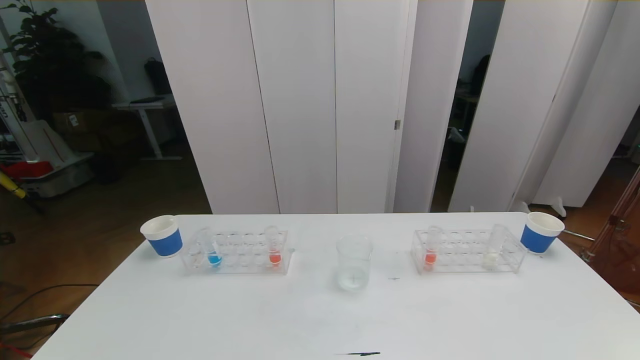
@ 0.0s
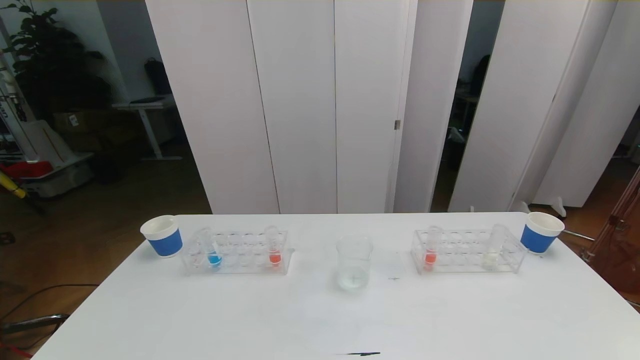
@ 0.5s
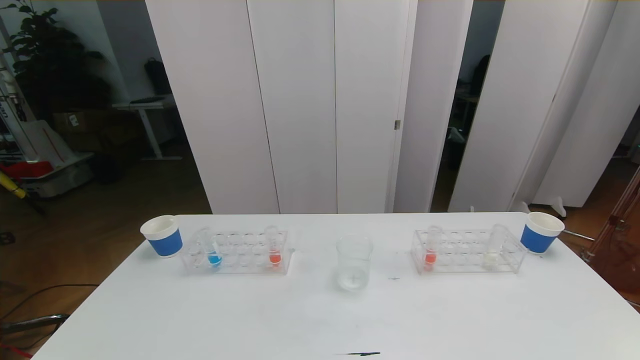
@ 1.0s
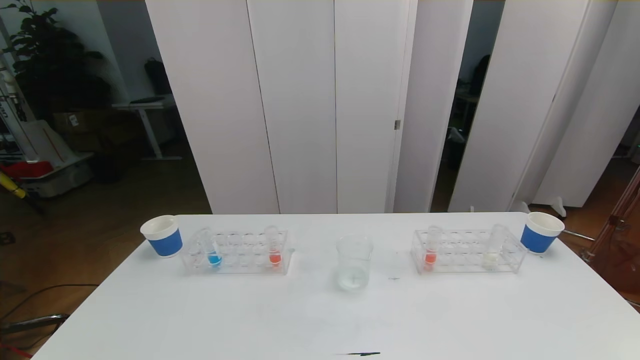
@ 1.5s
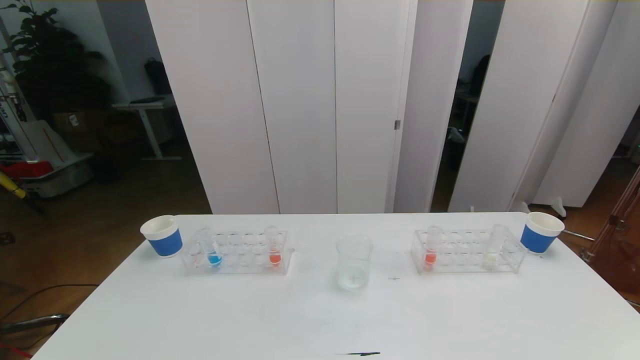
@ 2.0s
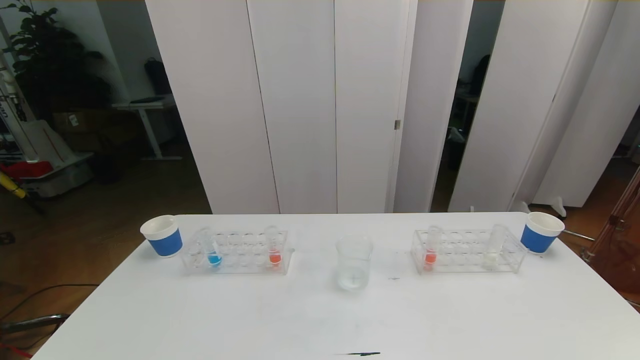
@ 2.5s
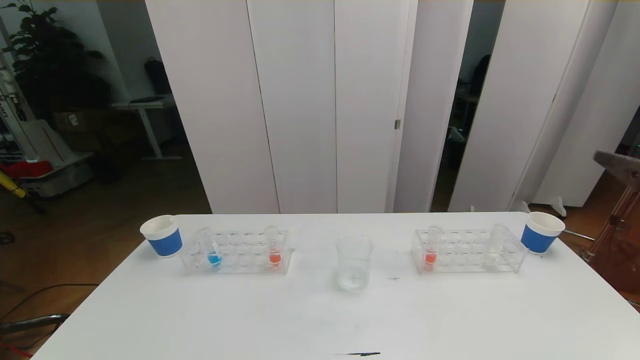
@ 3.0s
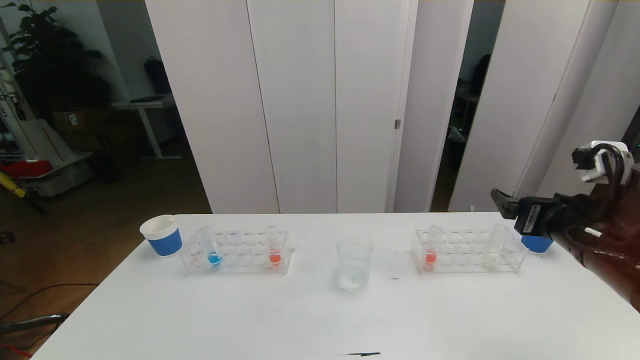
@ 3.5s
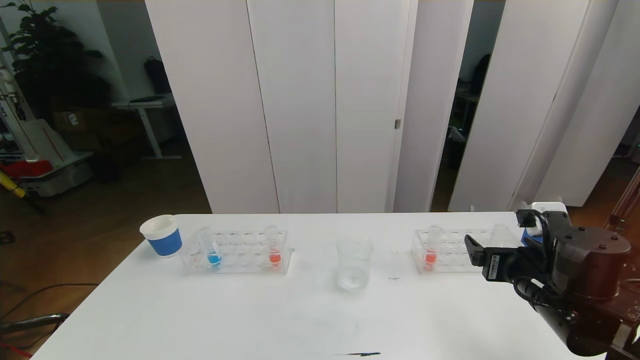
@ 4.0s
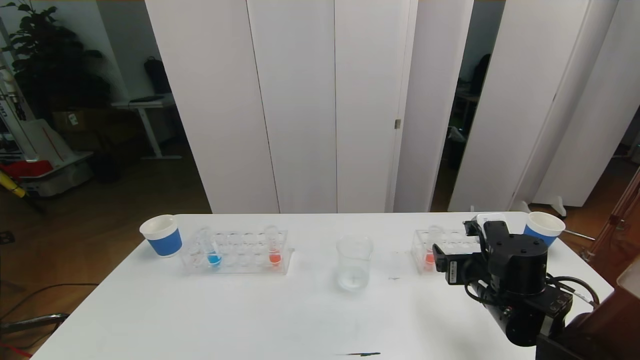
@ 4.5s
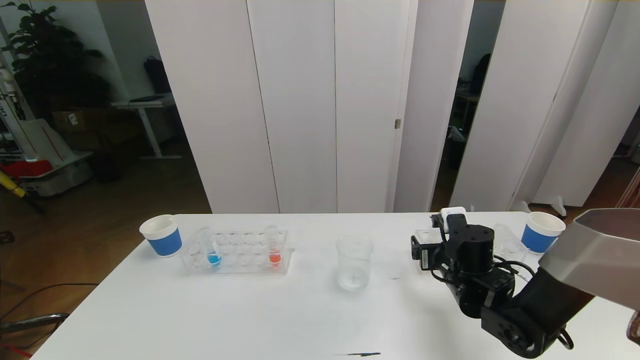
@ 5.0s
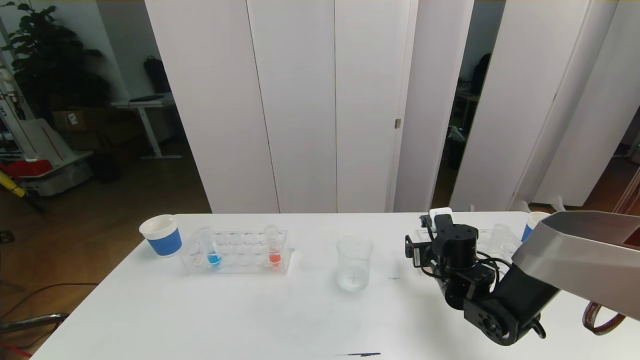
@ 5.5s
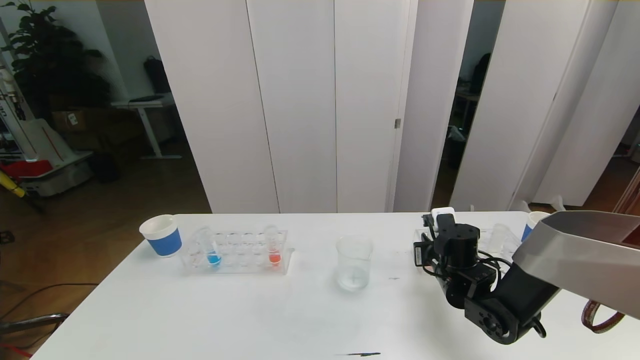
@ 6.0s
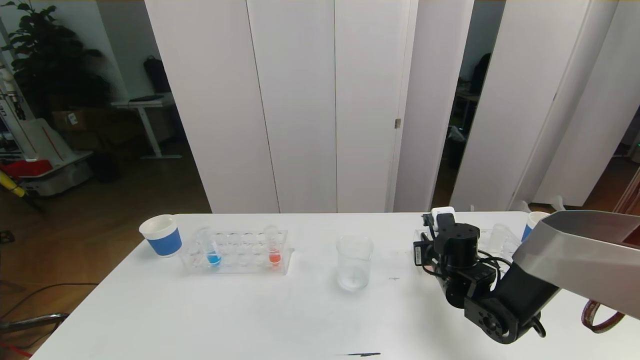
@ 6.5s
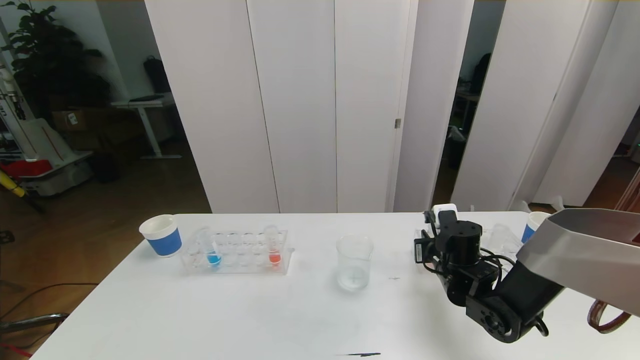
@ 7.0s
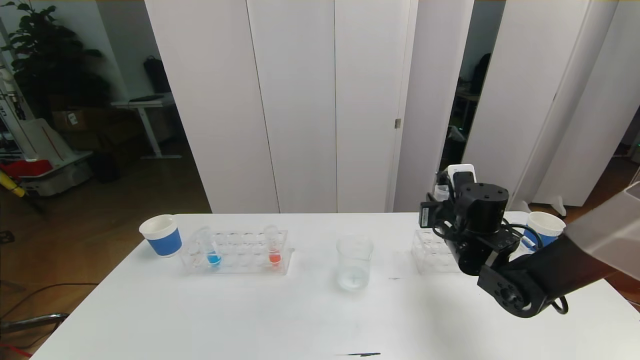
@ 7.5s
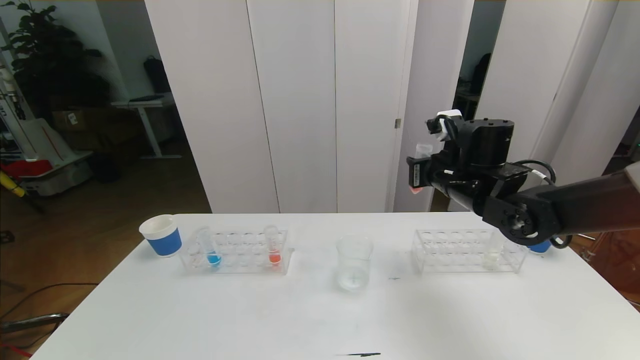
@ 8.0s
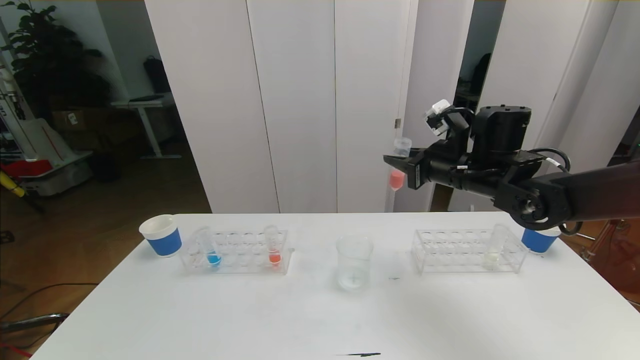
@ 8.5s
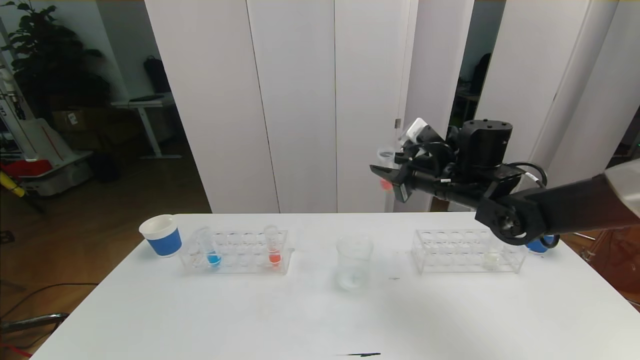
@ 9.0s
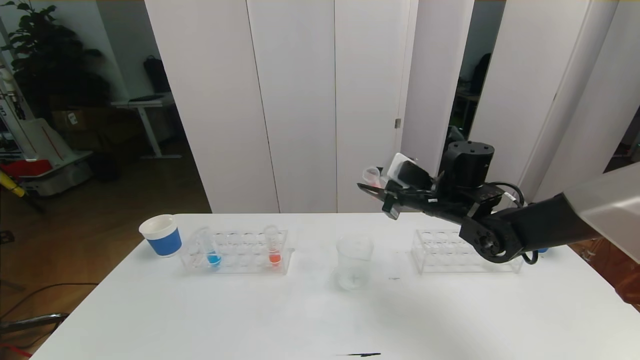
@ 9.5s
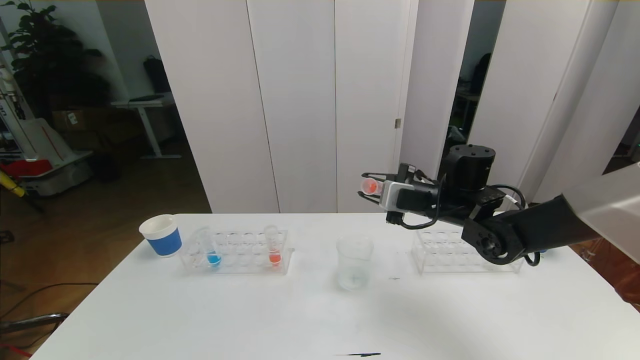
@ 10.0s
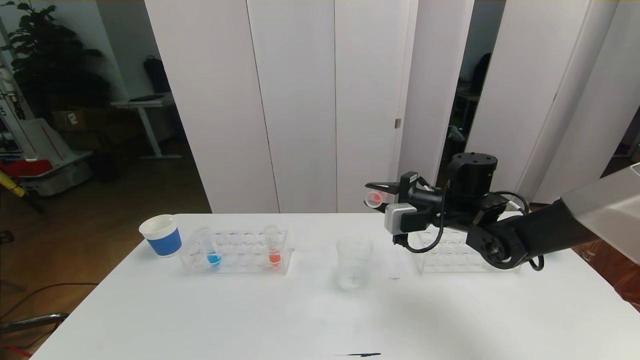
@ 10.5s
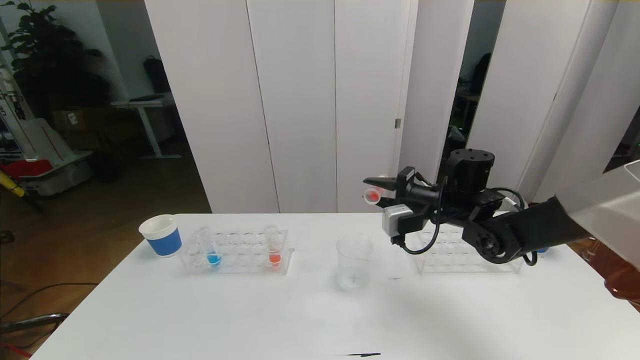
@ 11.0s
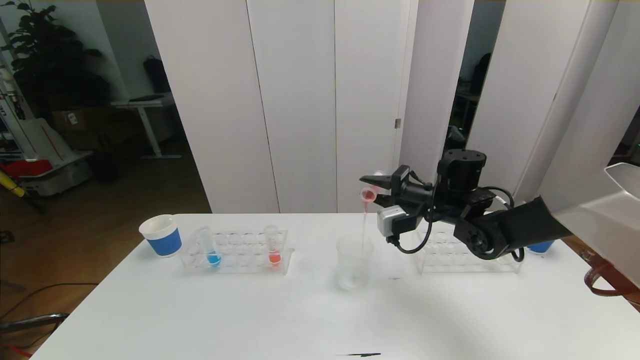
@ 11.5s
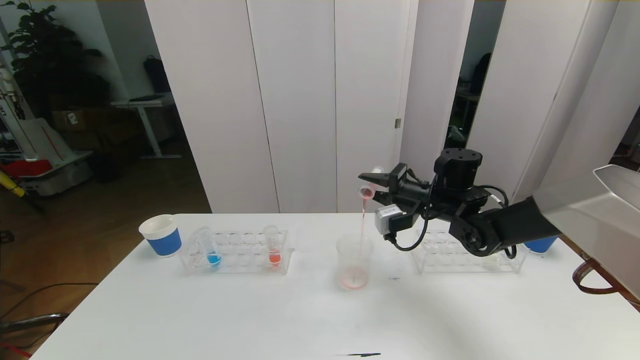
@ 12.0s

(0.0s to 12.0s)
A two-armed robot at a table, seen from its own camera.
Task of the whole recording: pick up the test tube with red pigment the test tube with blue pigment and the test tube with white pigment by grippers and pour them into the beaker.
2.0s - 4.0s: The right gripper moves forward, about 25 cm.
4.0s - 6.0s: The right gripper travels forward, downward and to the left by about 15 cm, and closes.
6.0s - 8.0s: The right gripper goes about 15 cm upward.
8.0s - 10.0s: The right gripper changes place by some 5 cm.

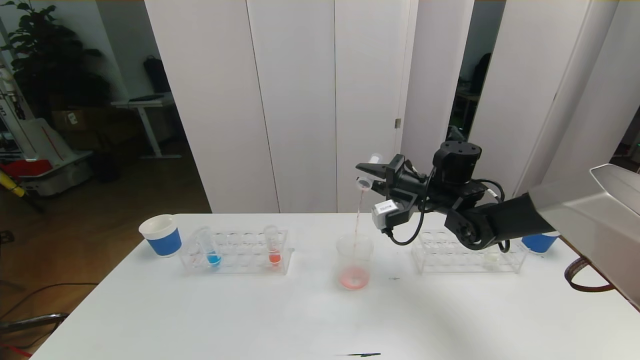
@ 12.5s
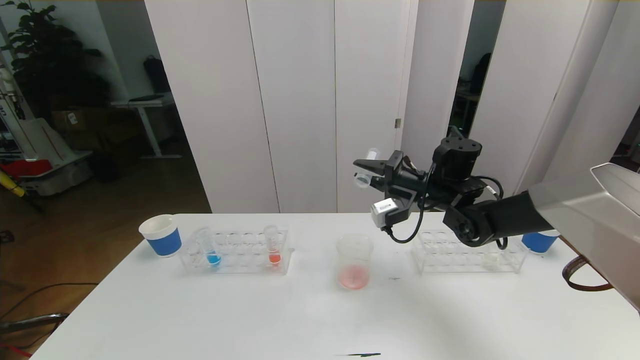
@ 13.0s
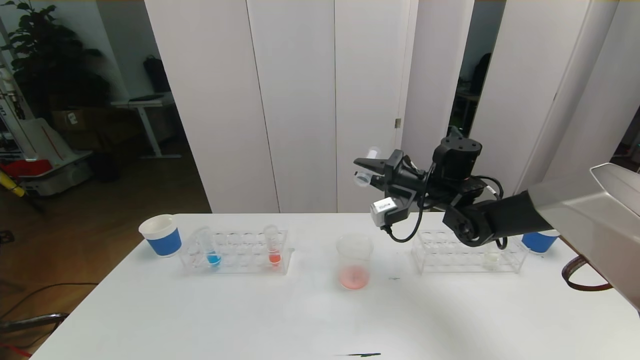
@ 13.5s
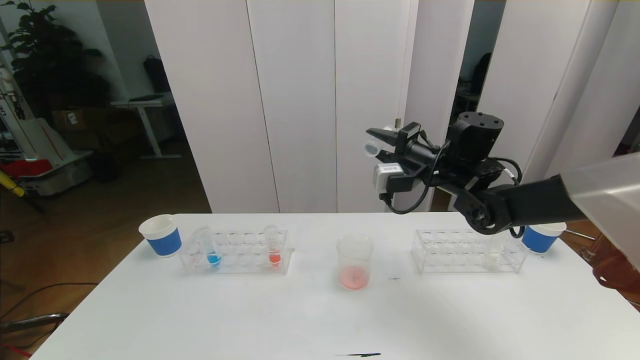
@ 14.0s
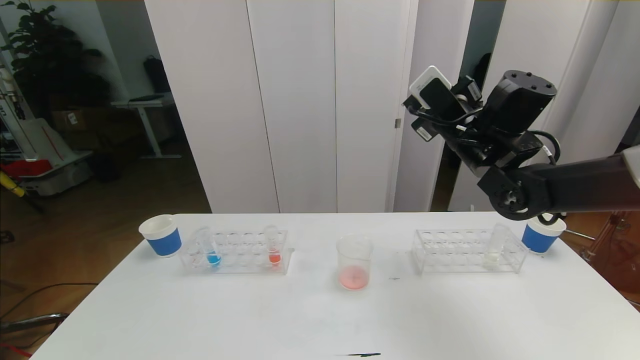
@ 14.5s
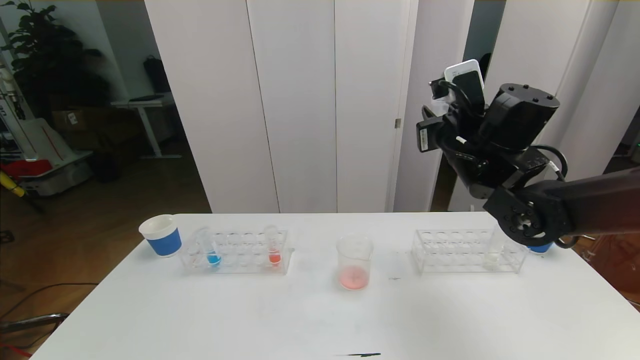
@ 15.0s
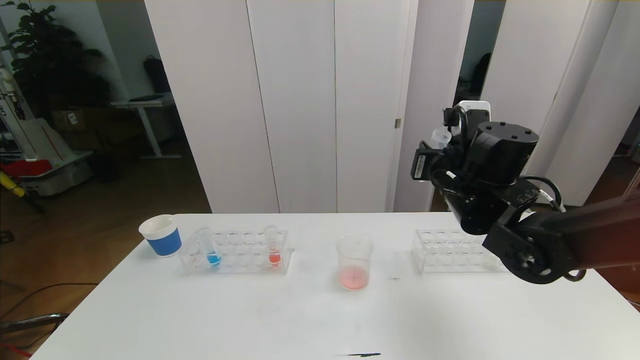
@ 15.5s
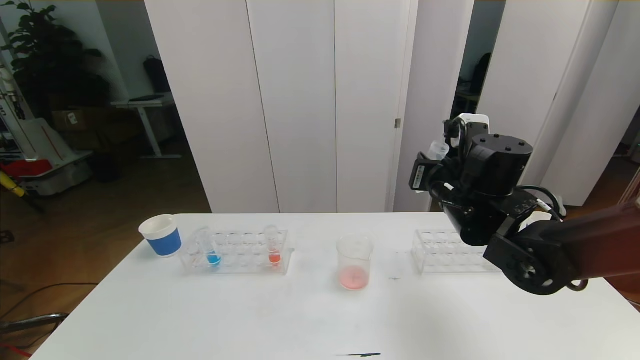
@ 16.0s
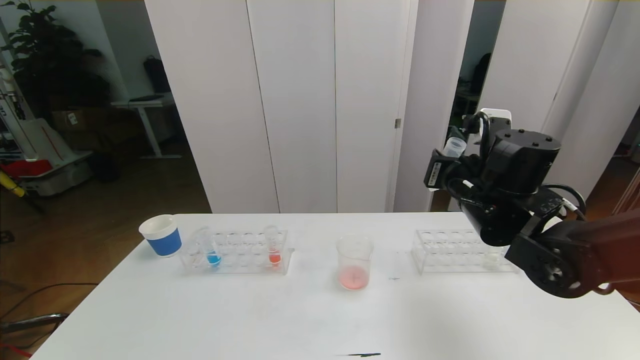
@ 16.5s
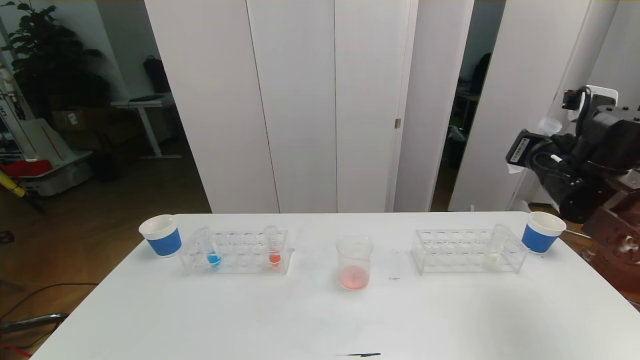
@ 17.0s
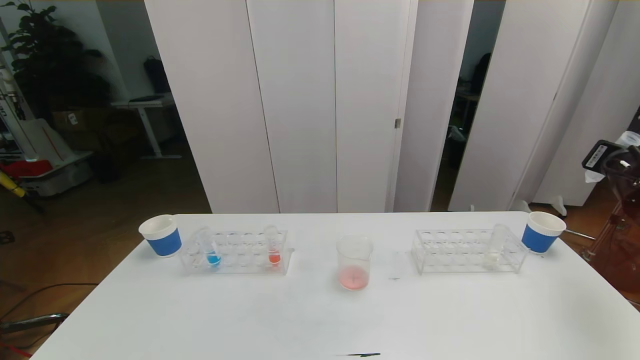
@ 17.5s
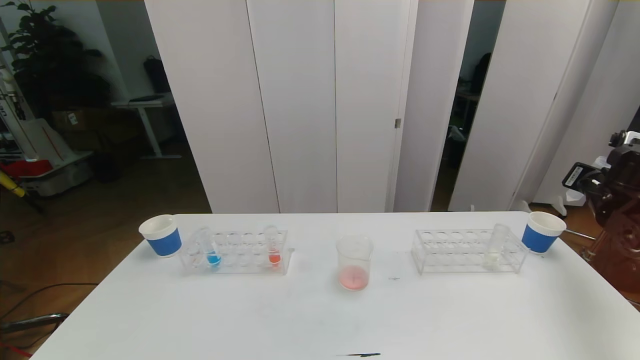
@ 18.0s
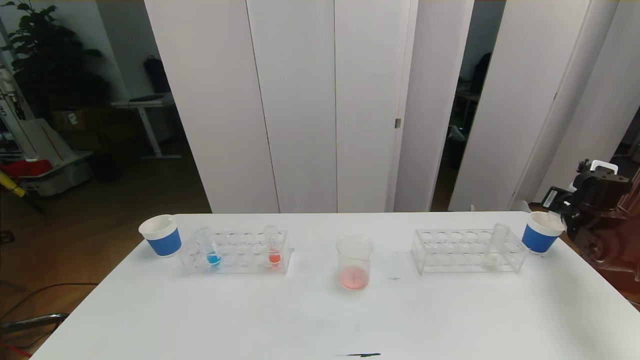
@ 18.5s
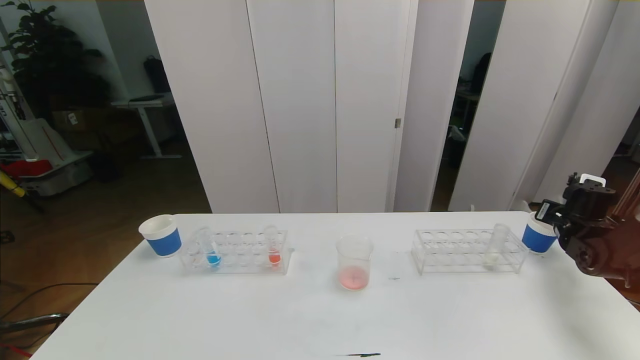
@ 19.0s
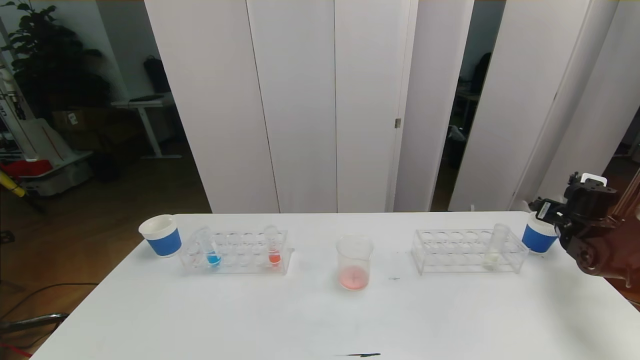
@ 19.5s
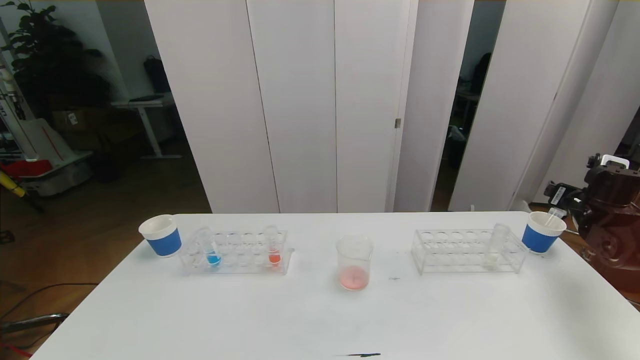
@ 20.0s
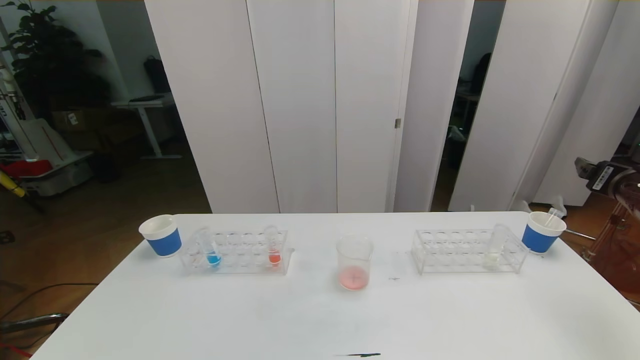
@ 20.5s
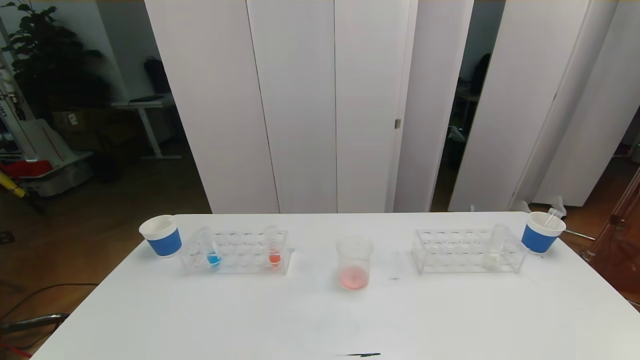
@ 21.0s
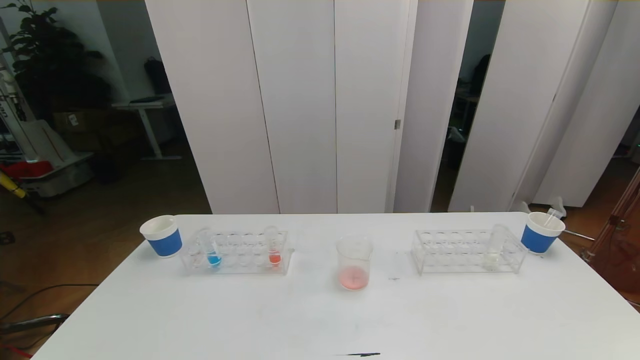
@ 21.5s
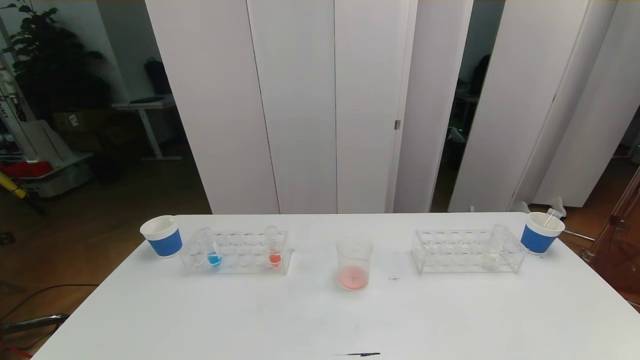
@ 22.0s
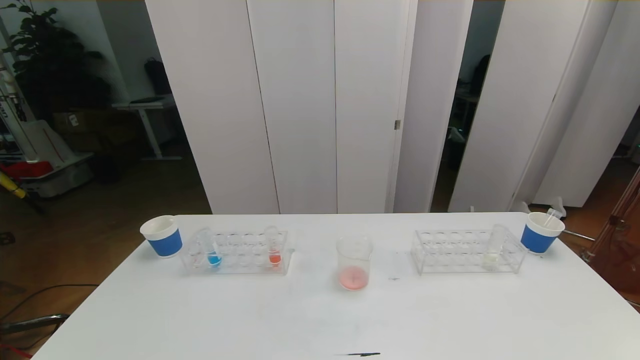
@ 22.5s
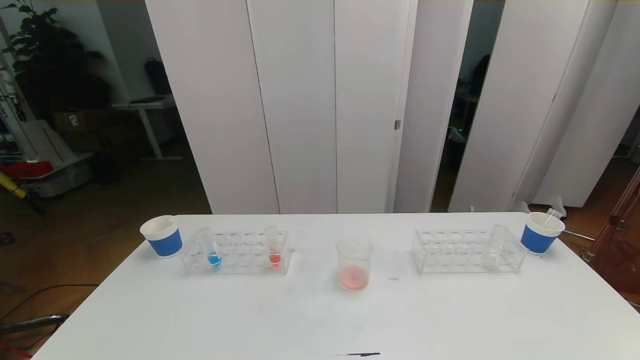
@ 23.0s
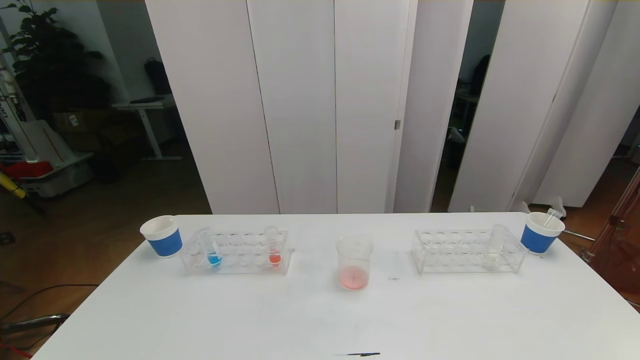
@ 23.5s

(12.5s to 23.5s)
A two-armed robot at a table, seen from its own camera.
Task of the whole recording: pick up the test tube with red pigment the test tube with blue pigment and the test tube with white pigment by grippers and pour them into the beaker.
12.5s - 14.5s: The right gripper travels upward by some 10 cm.
14.5s - 16.0s: The right gripper goes roughly 10 cm downward and backward.
16.0s - 18.0s: The right gripper moves to the right, approximately 30 cm.
18.0s - 20.0s: The right gripper opens its fingers.
20.0s - 21.5s: The right gripper is displaced backward by roughly 40 cm.
